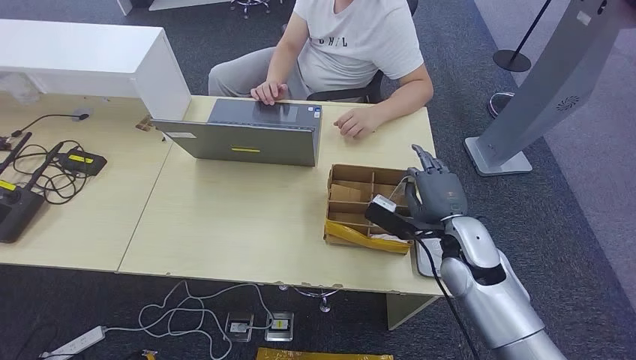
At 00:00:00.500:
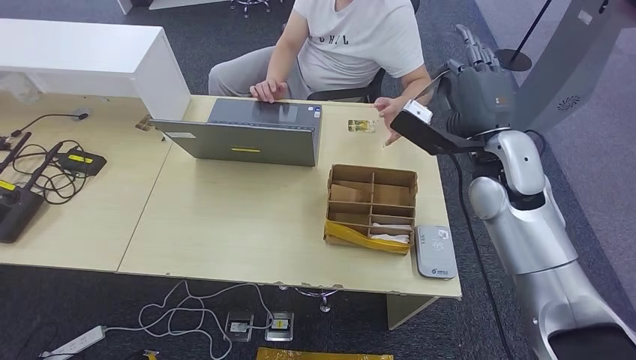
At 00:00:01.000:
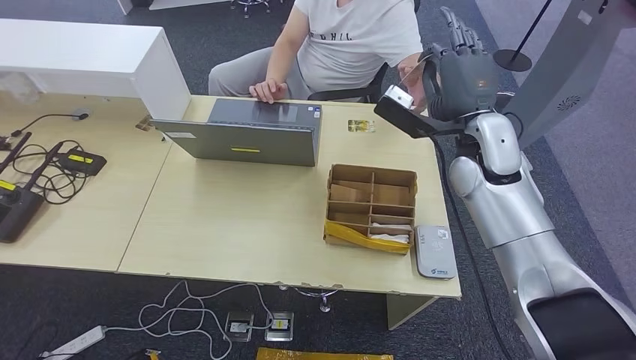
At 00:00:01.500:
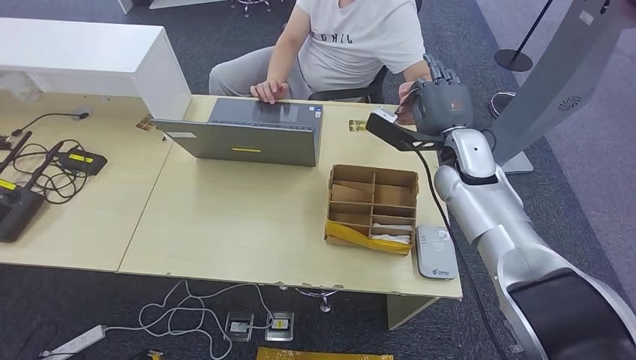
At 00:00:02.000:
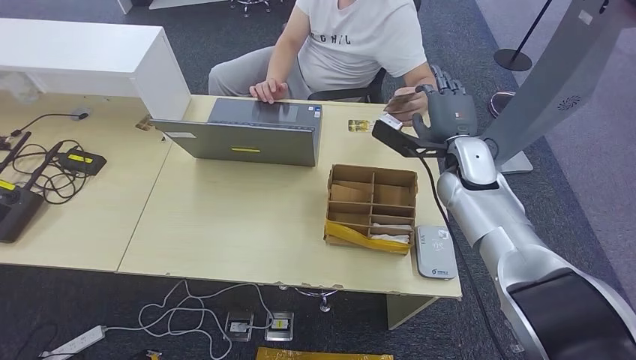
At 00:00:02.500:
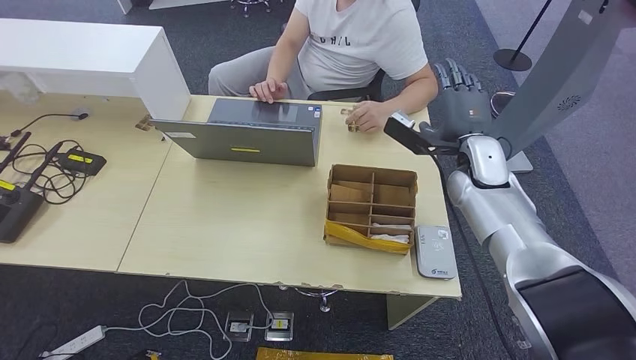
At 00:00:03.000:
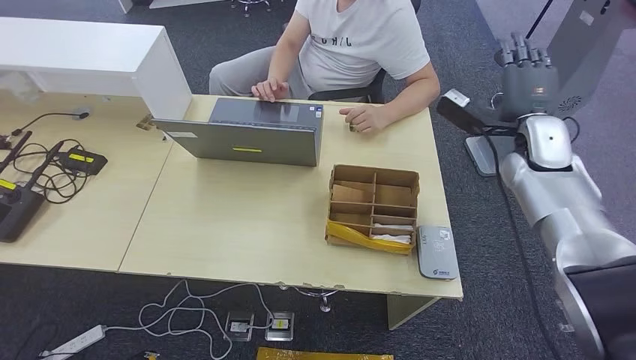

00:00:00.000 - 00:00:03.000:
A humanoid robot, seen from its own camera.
Step, 00:00:00.000 - 00:00:03.000: Hand the room key to the person.
00:00:00.000 - 00:00:01.500: The right hand travels forward and upward by some 15 cm.
00:00:01.500 - 00:00:03.000: The right hand moves to the right, roughly 10 cm.
